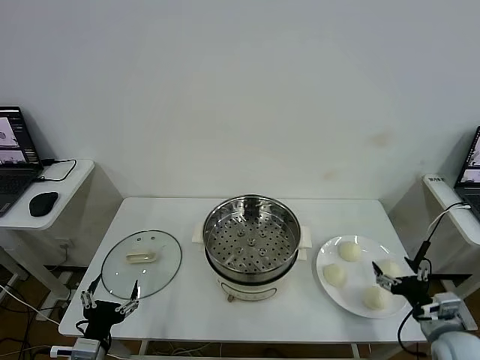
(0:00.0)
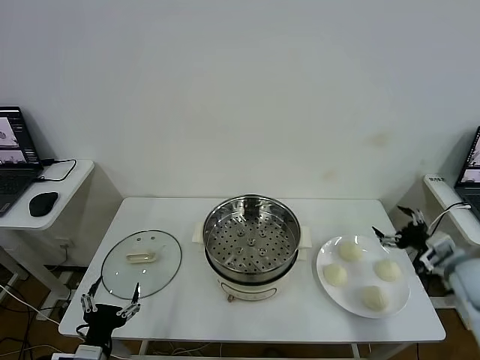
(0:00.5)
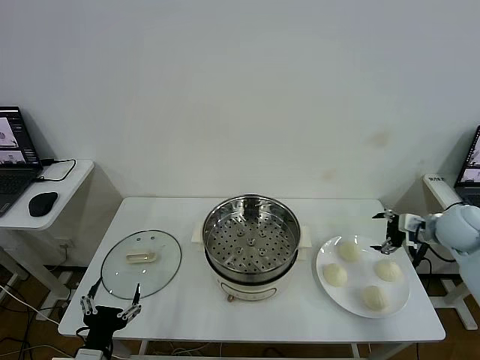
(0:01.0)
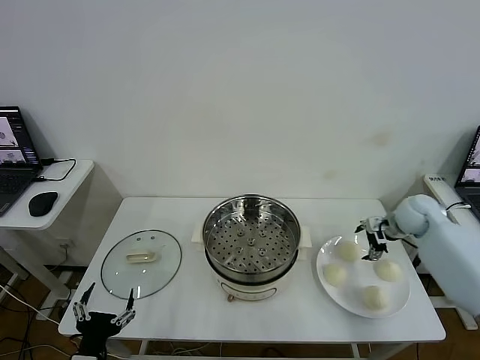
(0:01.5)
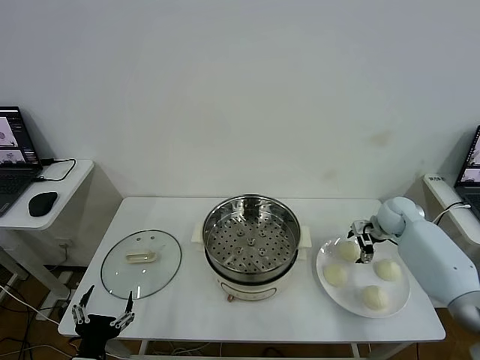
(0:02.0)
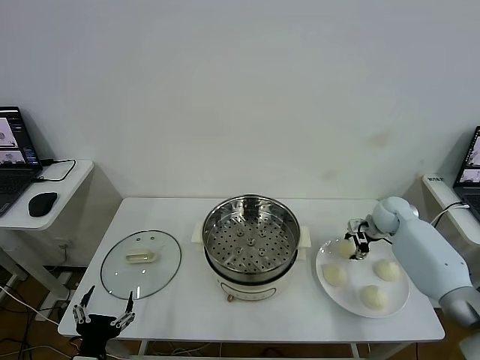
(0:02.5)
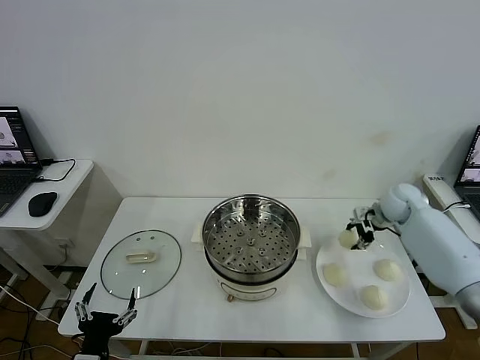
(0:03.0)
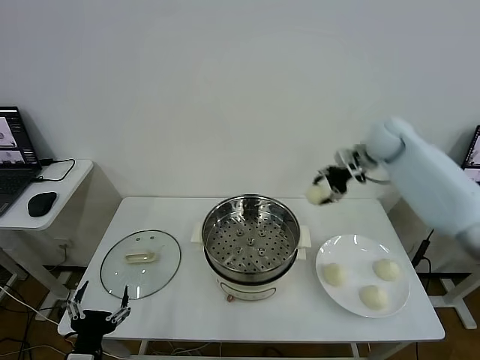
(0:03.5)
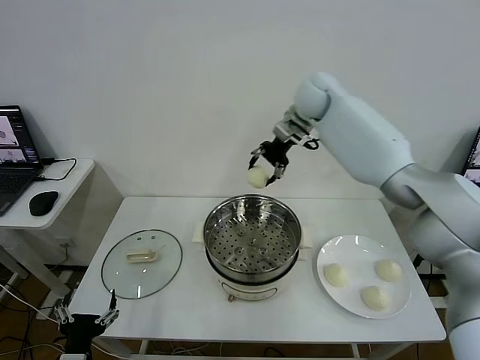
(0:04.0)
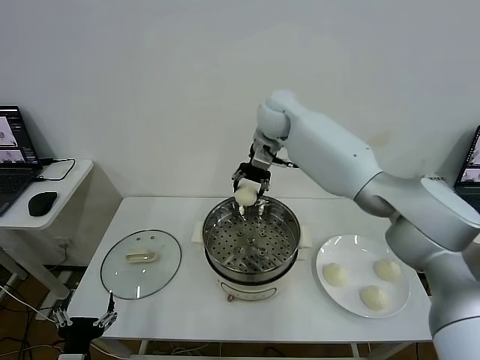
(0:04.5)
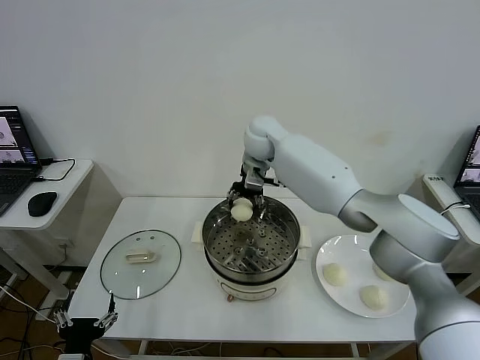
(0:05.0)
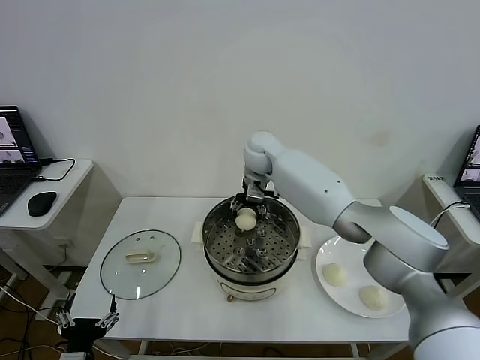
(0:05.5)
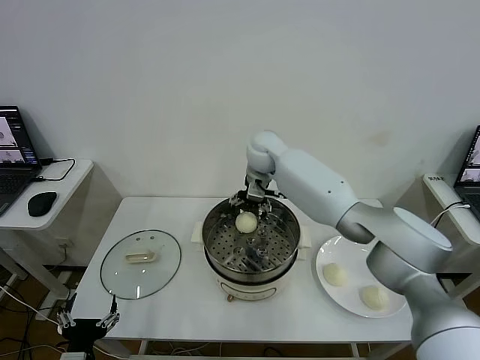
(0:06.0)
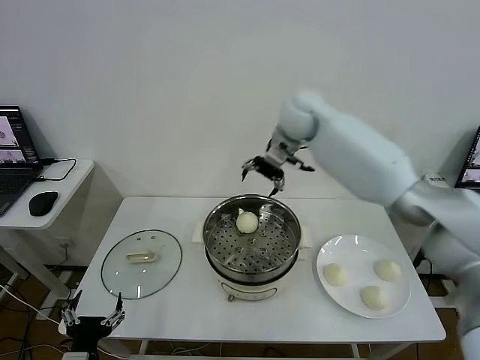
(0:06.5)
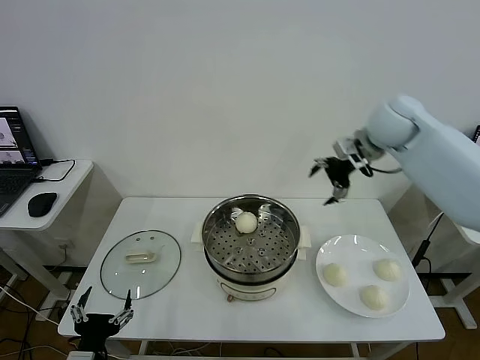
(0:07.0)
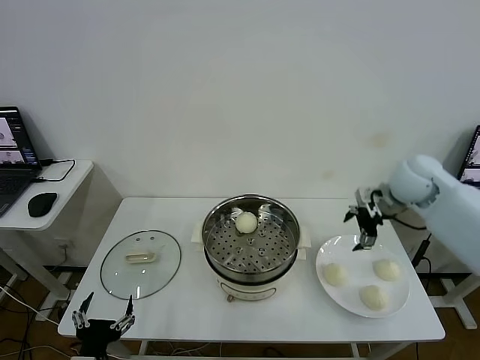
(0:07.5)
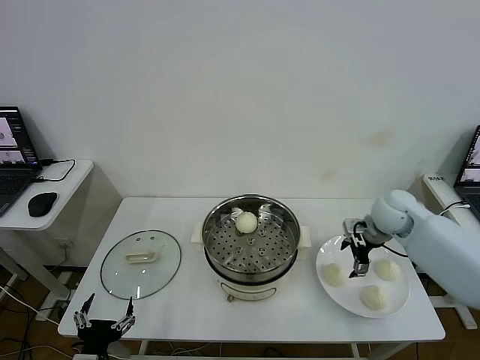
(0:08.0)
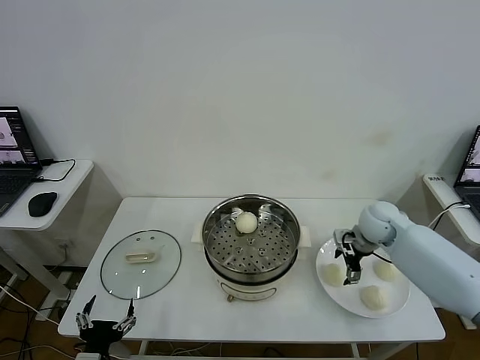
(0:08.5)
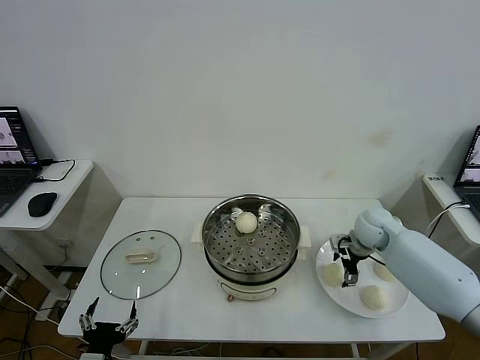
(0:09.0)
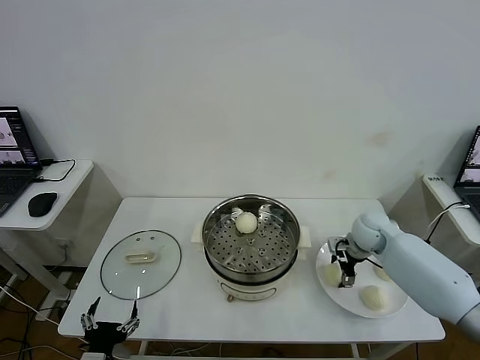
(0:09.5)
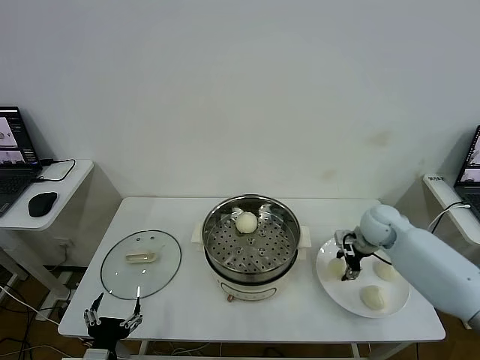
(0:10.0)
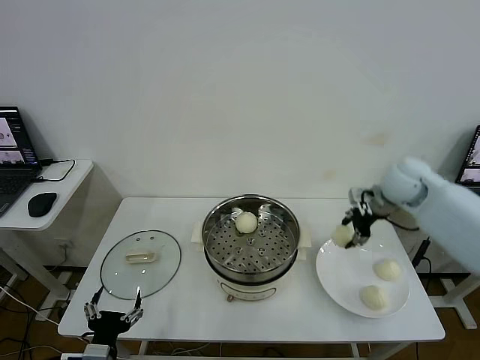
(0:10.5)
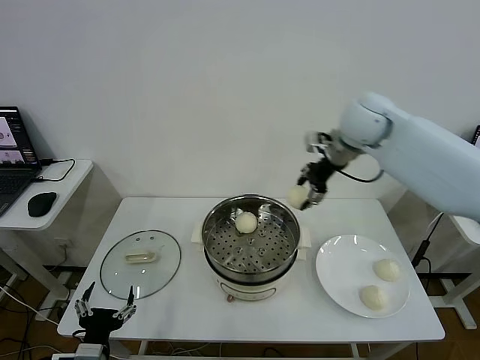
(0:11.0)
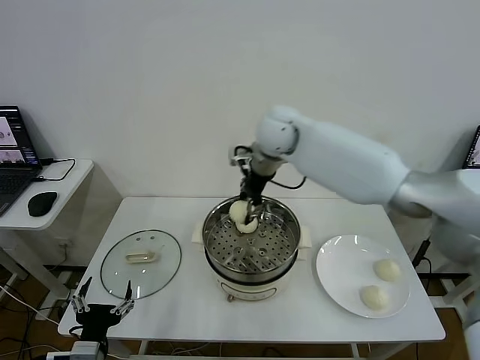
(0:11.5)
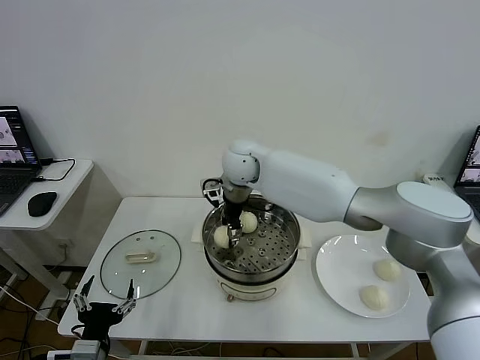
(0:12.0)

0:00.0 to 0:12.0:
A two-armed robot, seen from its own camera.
Step, 0:00.0 to 0:02.0: Grasp the baozi in the plate with right gripper.
Step, 0:03.0 to 0:05.5: Place the baozi on the steamer with right gripper.
Step, 0:06.0 to 0:09.5: Grasp the baozi in the plate with right gripper.
0:02.0 to 0:04.0: The right gripper moves upward, to the left and forward, roughly 40 cm, and closes.
0:04.0 to 0:06.0: The right gripper goes roughly 15 cm downward and to the left, and opens.
0:06.0 to 0:08.0: The right gripper goes roughly 30 cm to the right and backward.
0:08.0 to 0:10.0: The right gripper travels downward by approximately 5 cm, and closes up.
0:10.0 to 0:12.0: The right gripper travels to the left and upward by approximately 35 cm.

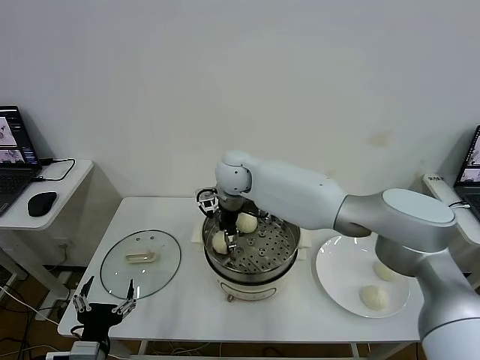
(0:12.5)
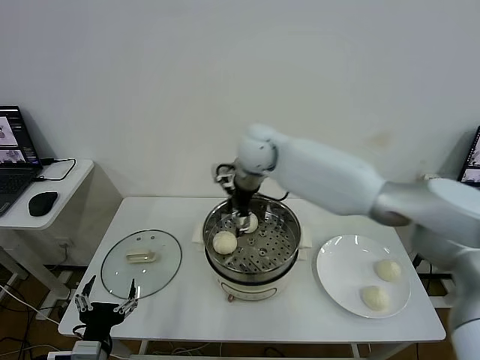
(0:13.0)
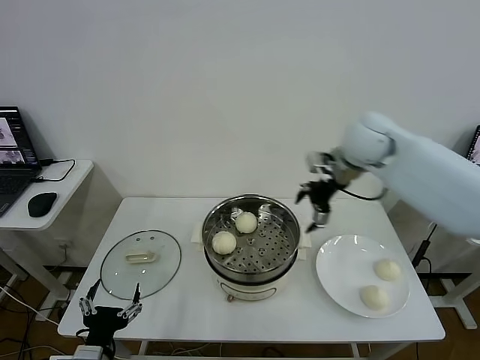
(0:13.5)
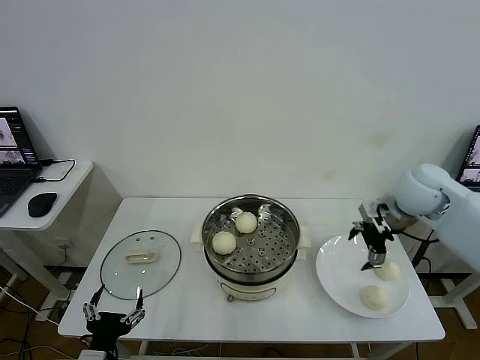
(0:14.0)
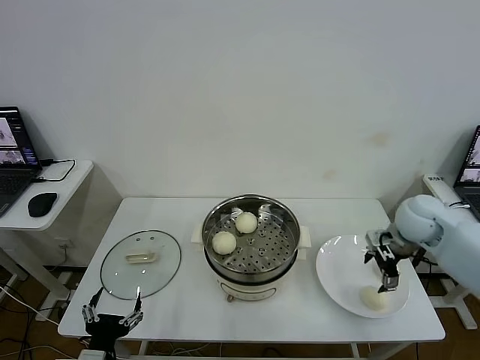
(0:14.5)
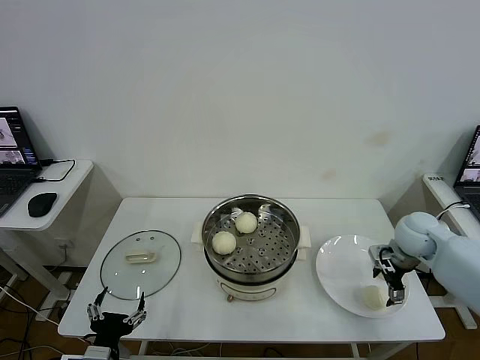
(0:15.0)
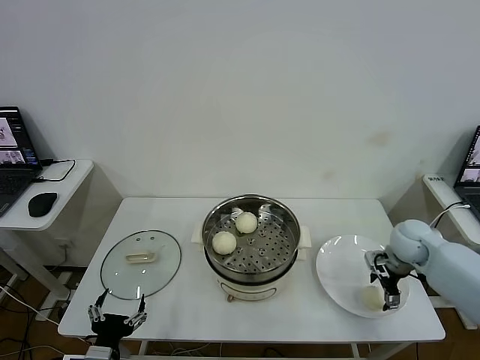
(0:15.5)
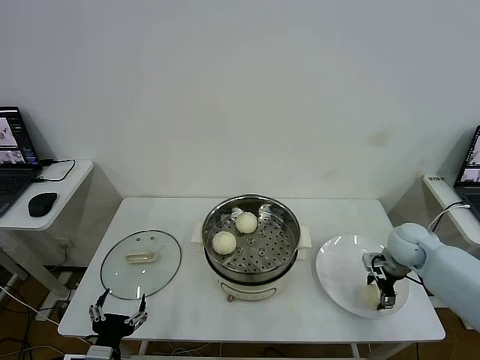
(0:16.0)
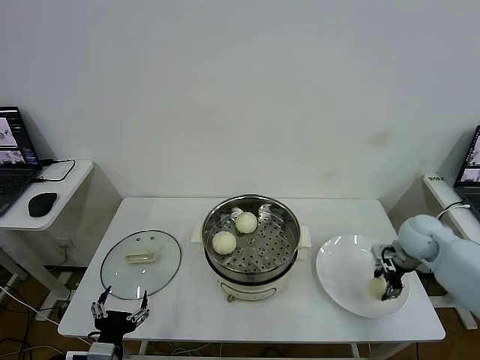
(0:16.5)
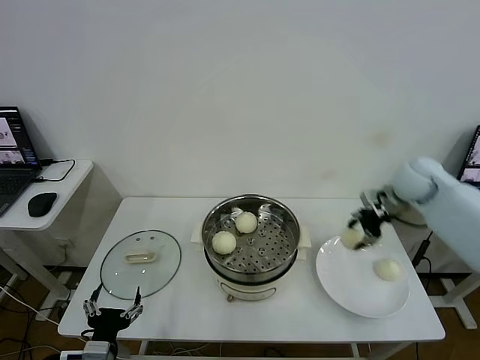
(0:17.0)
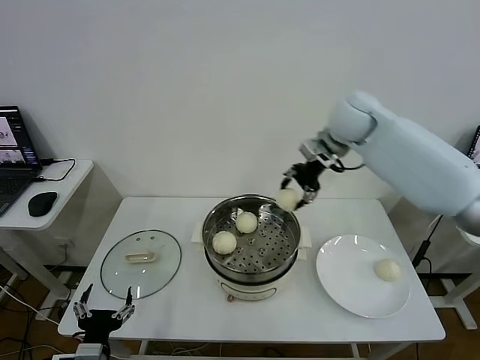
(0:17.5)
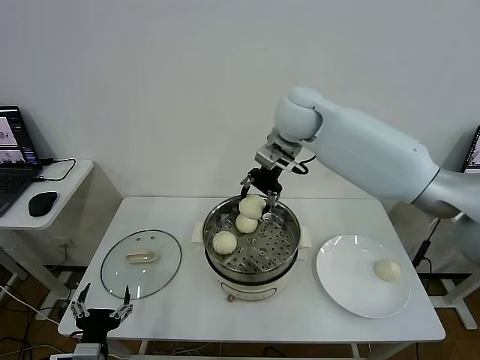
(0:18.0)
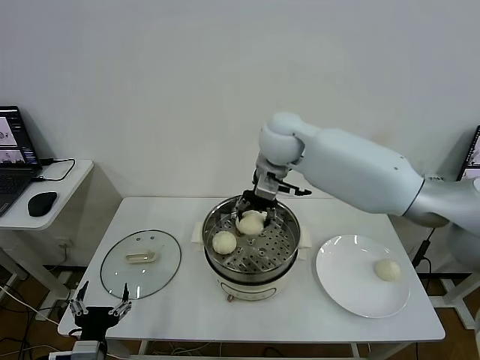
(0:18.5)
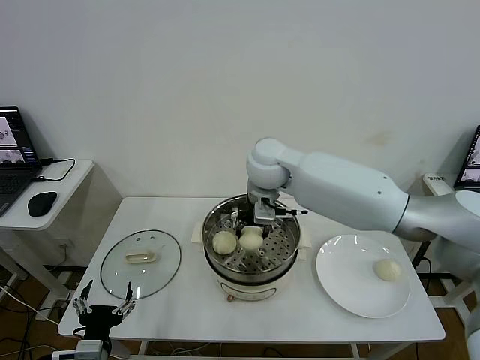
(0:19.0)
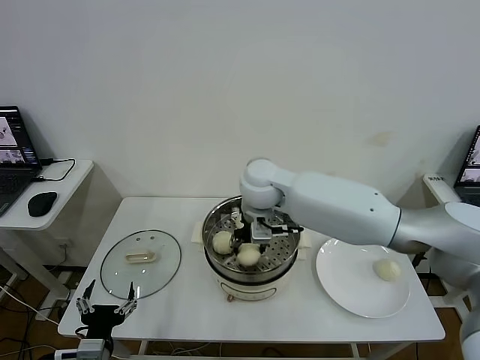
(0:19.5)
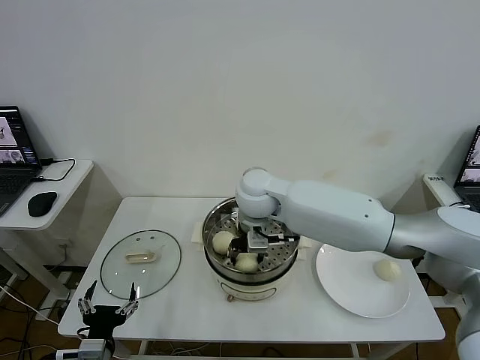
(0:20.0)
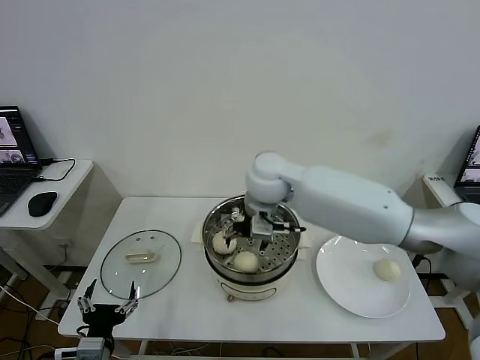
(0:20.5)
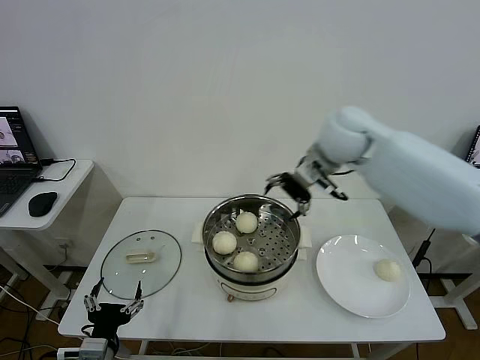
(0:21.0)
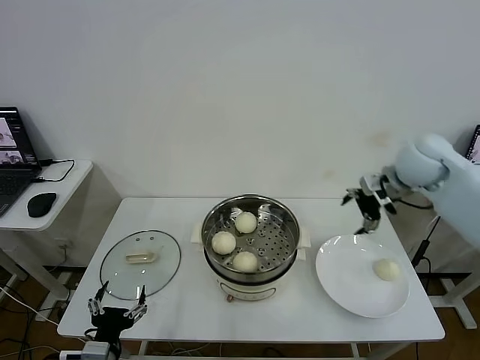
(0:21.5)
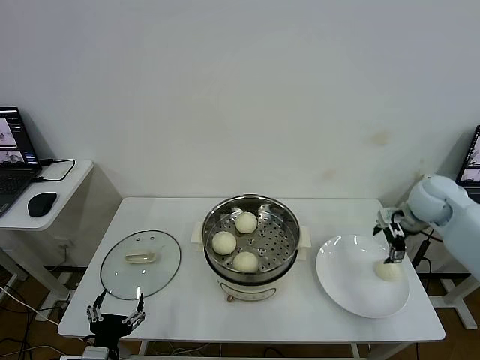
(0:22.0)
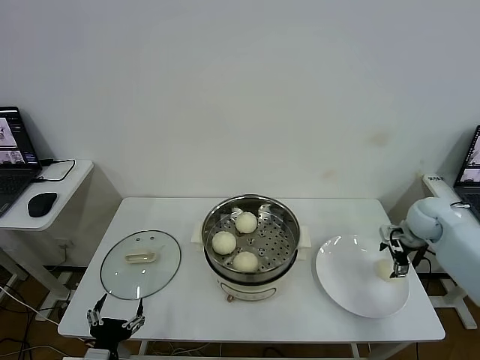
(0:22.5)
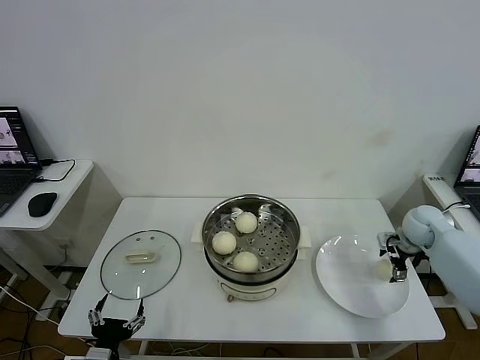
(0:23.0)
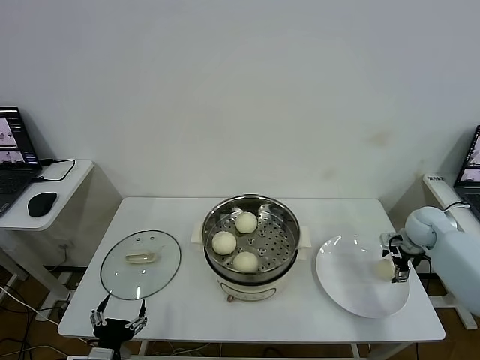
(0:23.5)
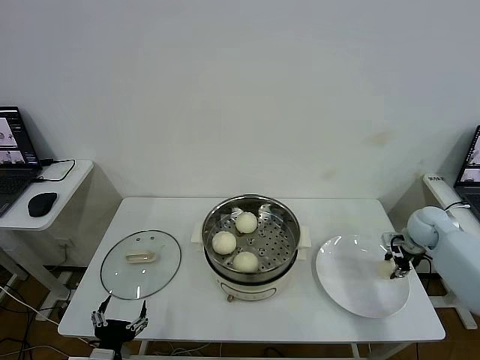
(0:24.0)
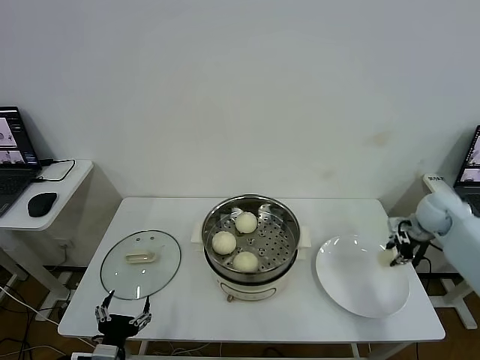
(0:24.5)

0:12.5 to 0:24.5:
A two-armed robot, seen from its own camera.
Step, 0:13.0 to 0:16.0: Grasp the baozi in the plate with right gripper.
Step, 0:16.5 to 0:20.0: Place the baozi on the steamer with right gripper.
Step, 0:20.5 to 0:24.0: Grasp the baozi in the plate with right gripper.
0:12.5 to 0:14.5: The right gripper travels to the right by some 40 cm.
0:14.5 to 0:16.5: The right gripper heads downward, covering some 5 cm, and closes up.
0:16.5 to 0:18.5: The right gripper heads to the left and upward, covering some 40 cm.
0:18.5 to 0:20.5: The right gripper goes some 10 cm downward and backward, and opens its fingers.
0:20.5 to 0:22.5: The right gripper travels to the right by roughly 40 cm.
0:22.5 to 0:24.5: The right gripper closes its fingers.

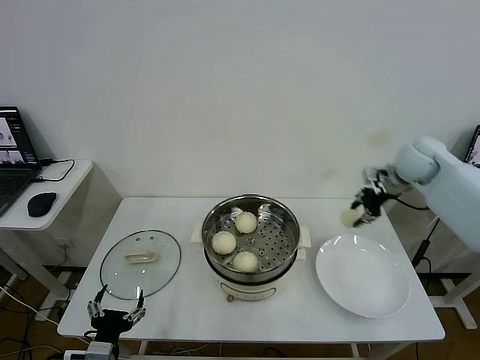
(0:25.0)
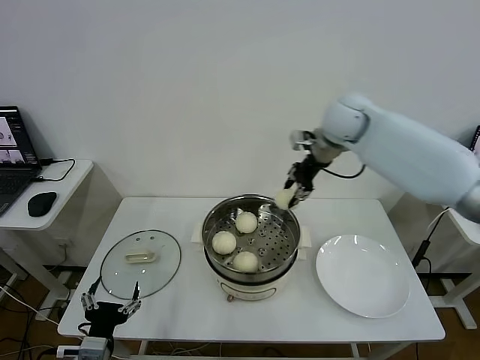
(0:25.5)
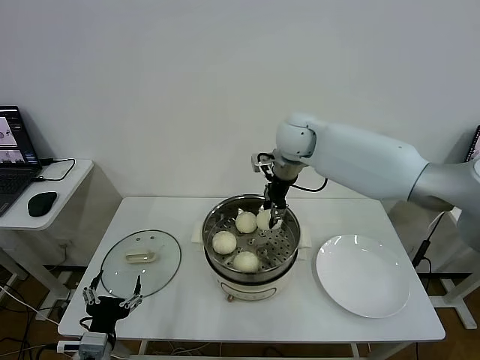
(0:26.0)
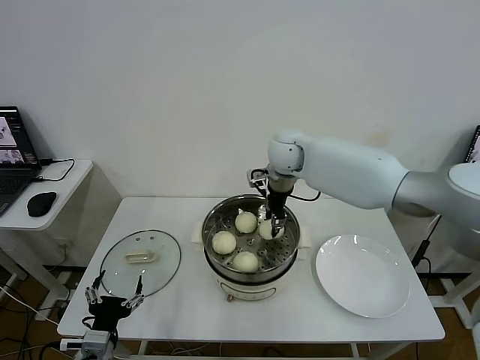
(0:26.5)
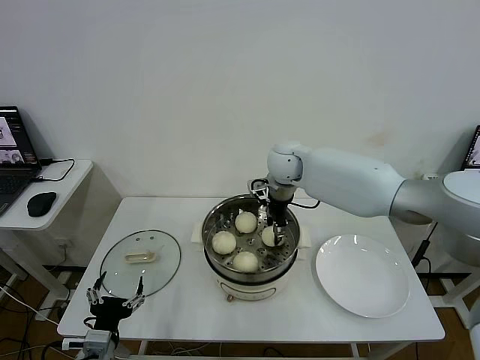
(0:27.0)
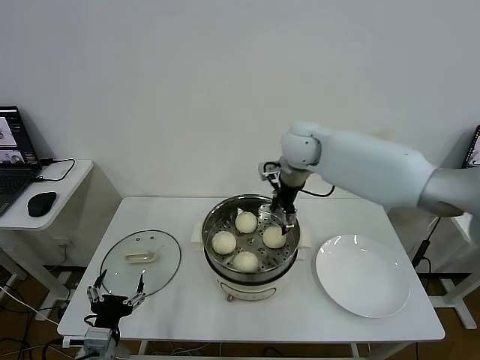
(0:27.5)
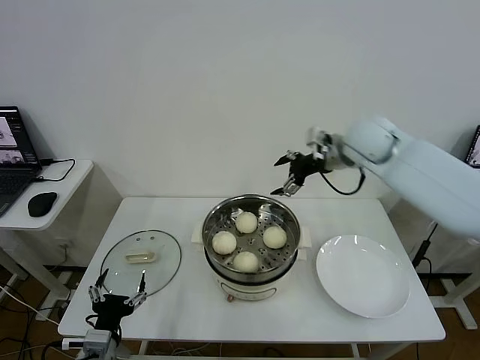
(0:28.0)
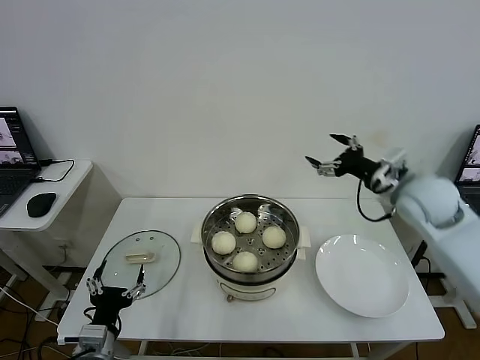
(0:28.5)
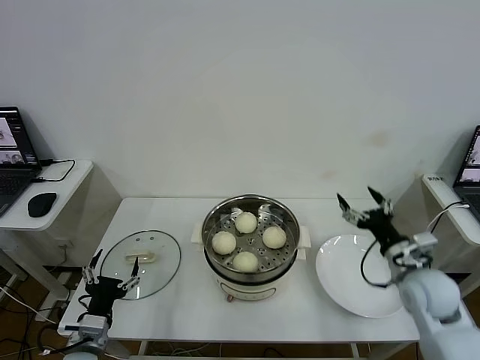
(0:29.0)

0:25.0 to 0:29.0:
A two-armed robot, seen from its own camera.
Step, 0:25.0 to 0:27.0: Place the baozi on the steamer with right gripper.
0:25.0 to 0:27.0: The right gripper travels to the left by some 30 cm.
0:27.0 to 0:29.0: The right gripper shifts roughly 40 cm to the right, backward and downward, and opens.
